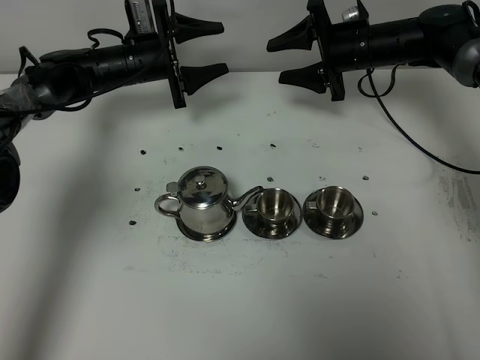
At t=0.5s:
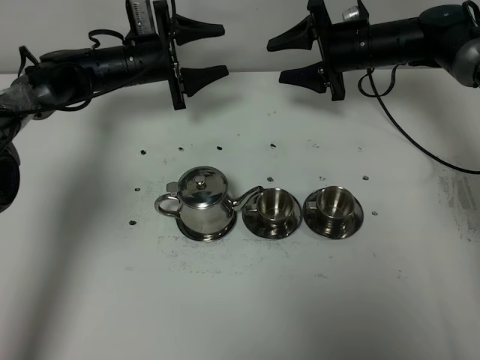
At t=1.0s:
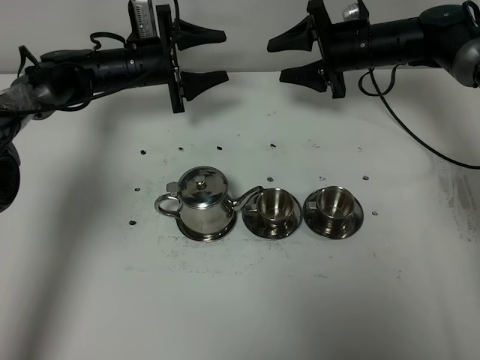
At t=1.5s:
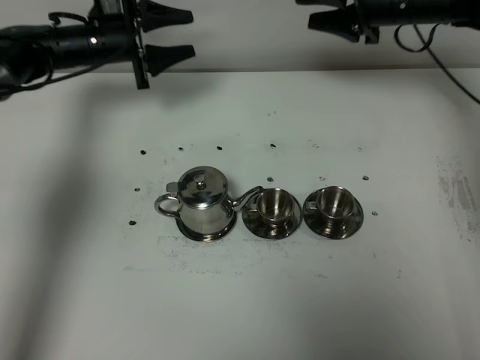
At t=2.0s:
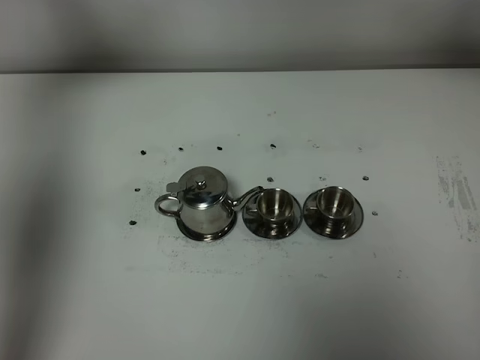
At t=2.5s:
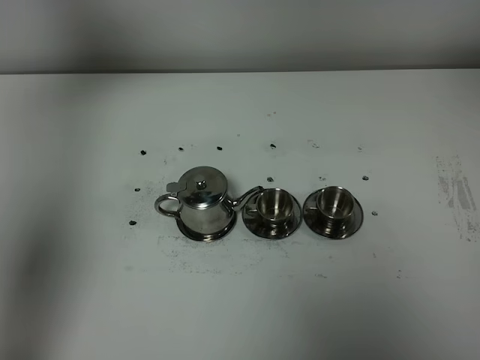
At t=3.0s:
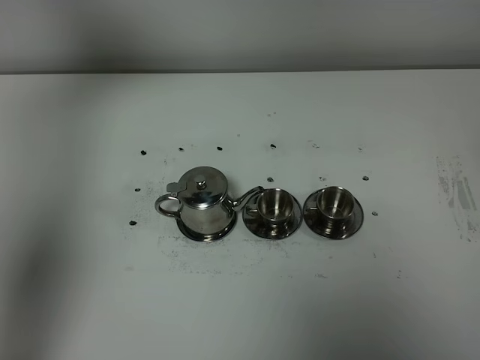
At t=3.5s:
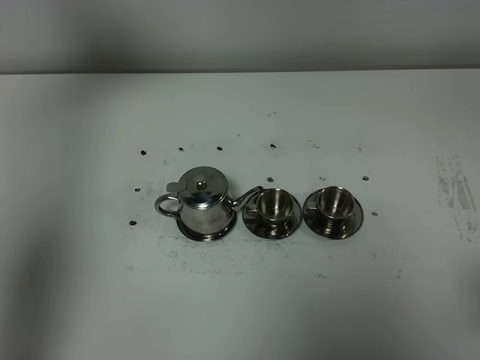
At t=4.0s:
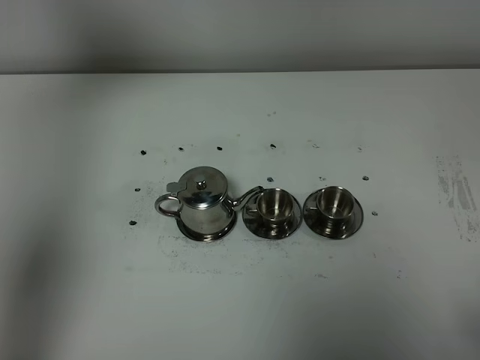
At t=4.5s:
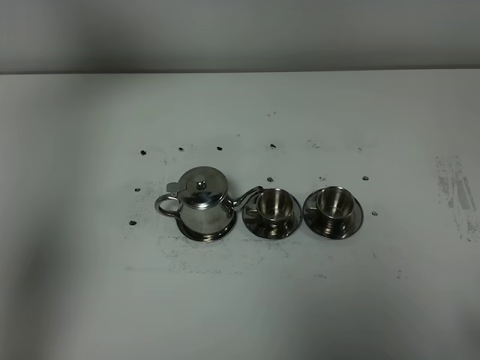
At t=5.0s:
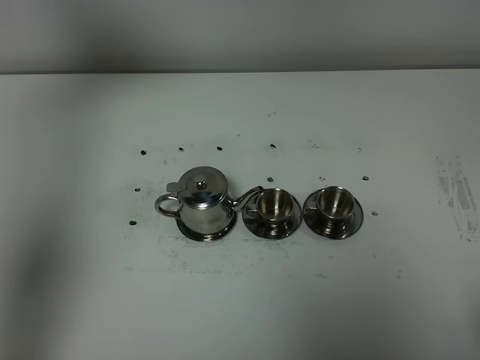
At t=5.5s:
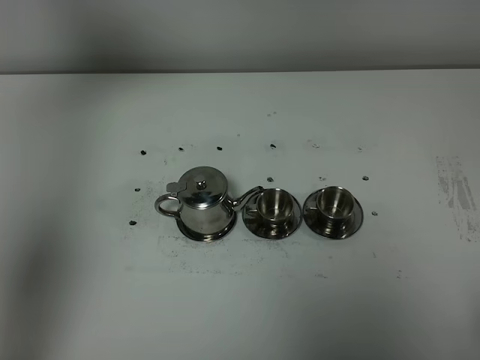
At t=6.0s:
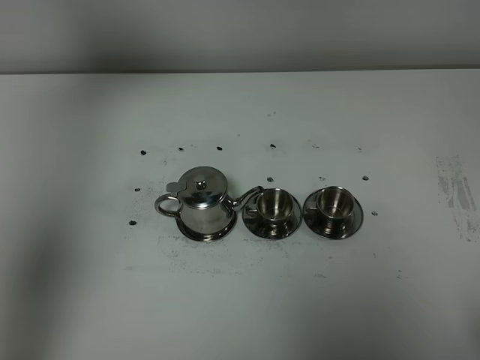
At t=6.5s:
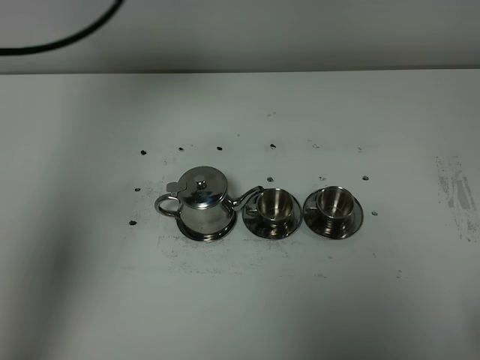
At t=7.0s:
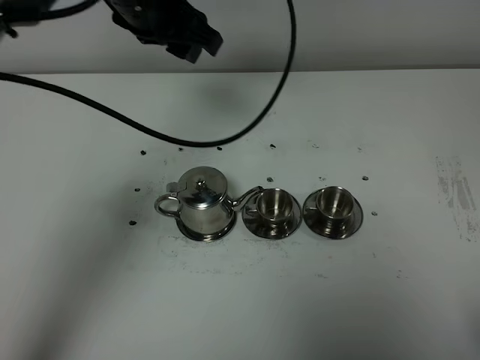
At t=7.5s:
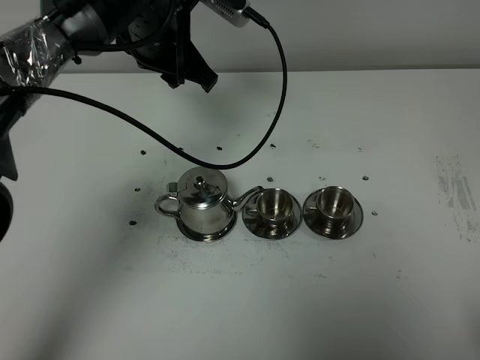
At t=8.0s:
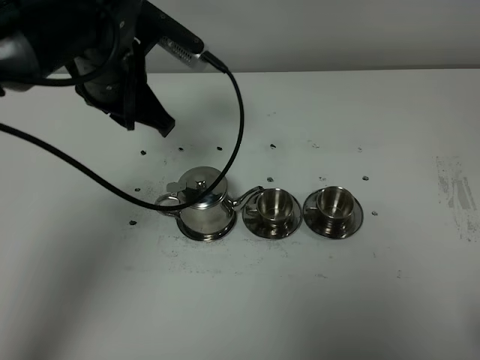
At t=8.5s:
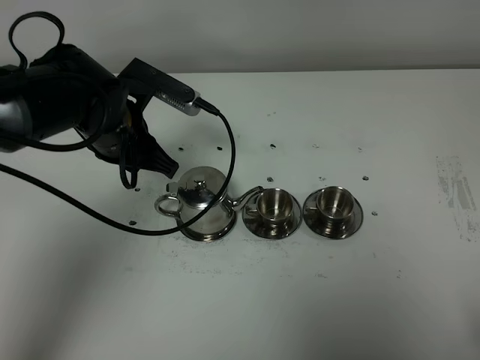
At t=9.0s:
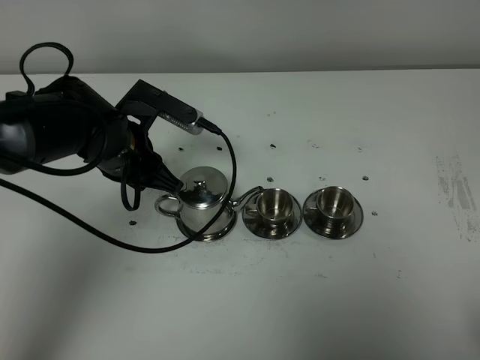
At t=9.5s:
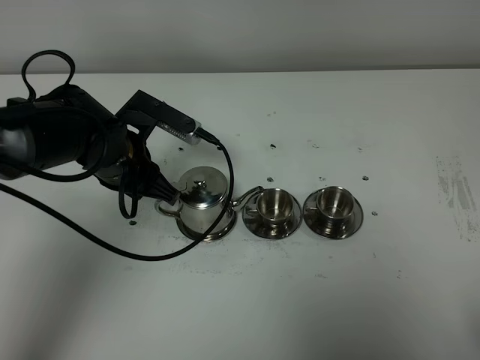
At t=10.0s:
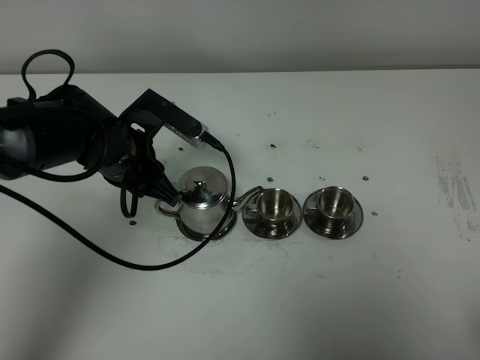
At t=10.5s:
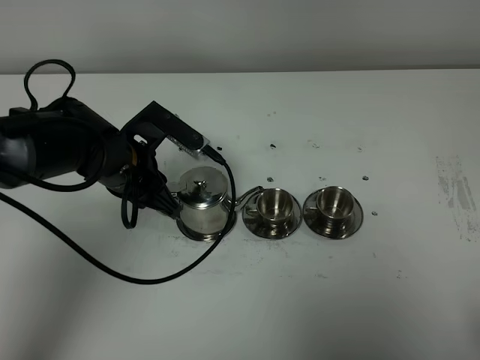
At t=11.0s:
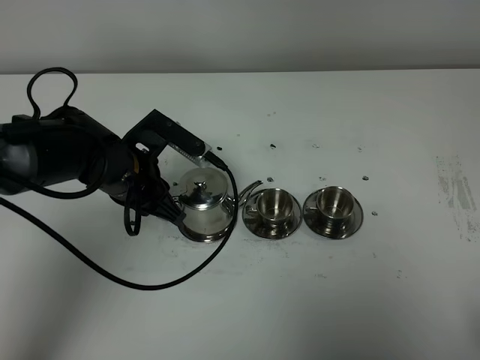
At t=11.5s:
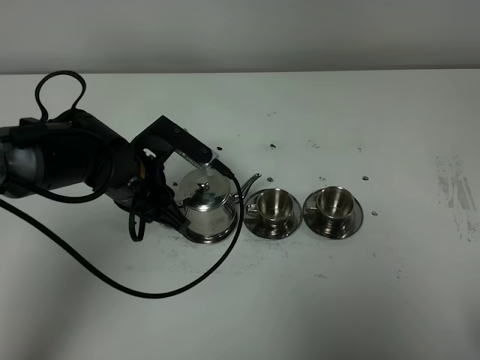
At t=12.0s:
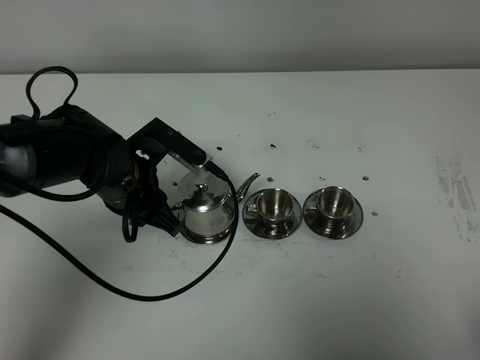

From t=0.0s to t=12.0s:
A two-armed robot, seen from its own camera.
Task of the whole recording: grasp the stainless steel teapot and pour the tea into the two stainless steel teacups one by one, put the stainless steel teapot back in its original place.
From t=0.0s to t=2.0s: The right gripper travels upward, backward and to the right by about 30 cm. The left gripper moves upward and to the left, roughly 25 cm.
From t=2.0s to t=4.0s: The right gripper heads backward, covering roughly 40 cm. Meanwhile the left gripper goes approximately 15 cm upward and backward.
From t=6.0s to t=8.0s: The left gripper shifts approximately 25 cm downward and to the right, and closes its fingers.
From t=8.0s to t=10.0s: The left gripper moves downward, some 10 cm.
From t=10.0s to t=12.0s: There are only small adjustments of the grippers.

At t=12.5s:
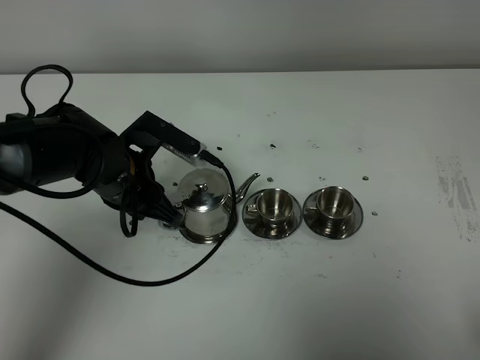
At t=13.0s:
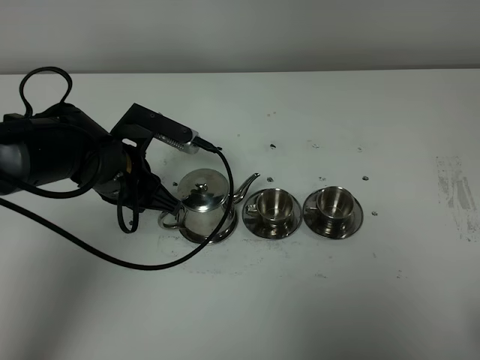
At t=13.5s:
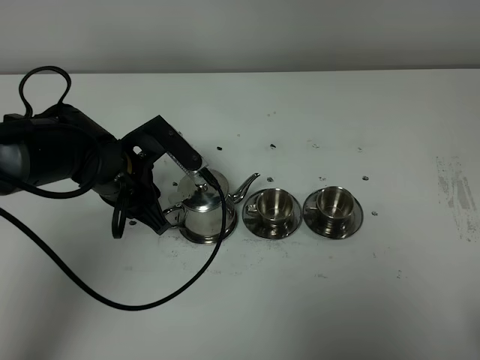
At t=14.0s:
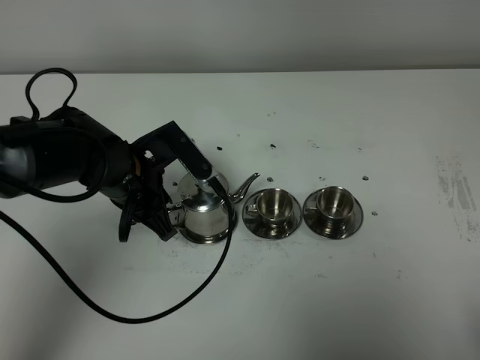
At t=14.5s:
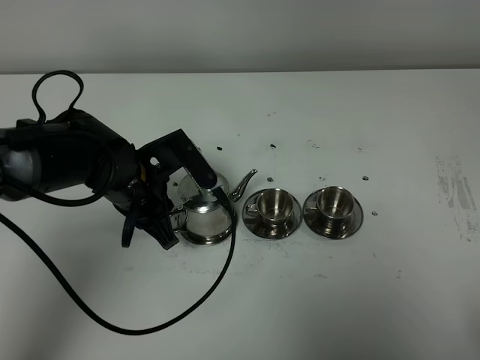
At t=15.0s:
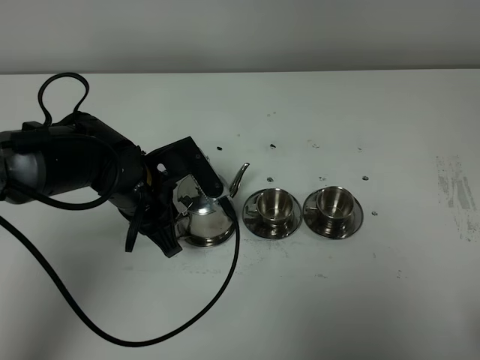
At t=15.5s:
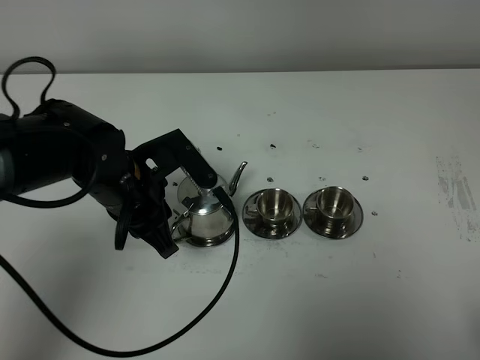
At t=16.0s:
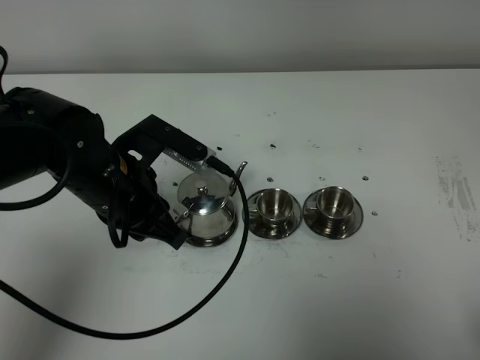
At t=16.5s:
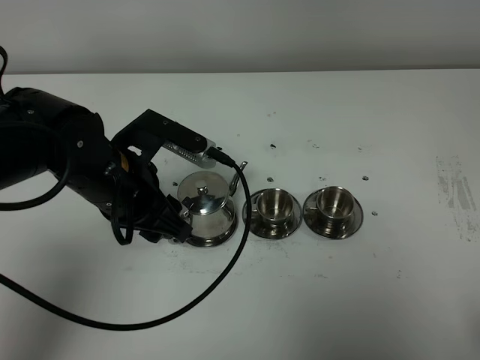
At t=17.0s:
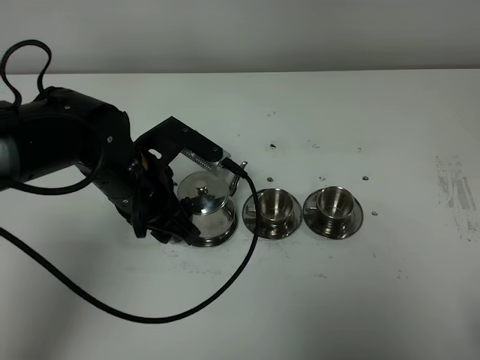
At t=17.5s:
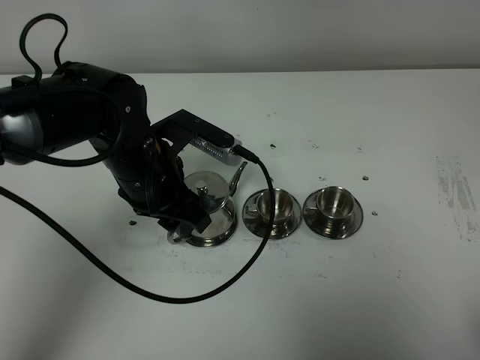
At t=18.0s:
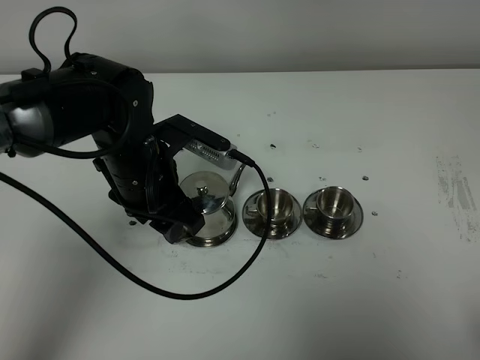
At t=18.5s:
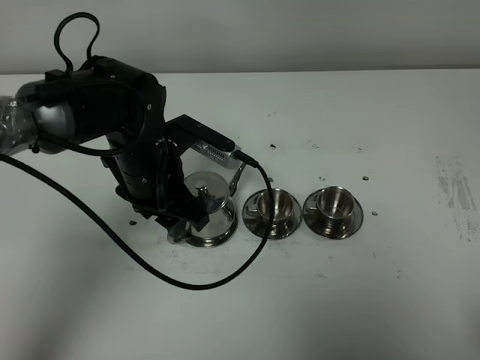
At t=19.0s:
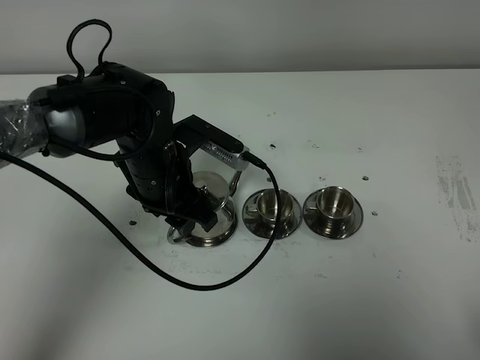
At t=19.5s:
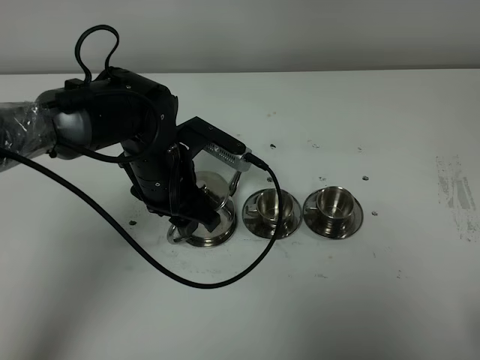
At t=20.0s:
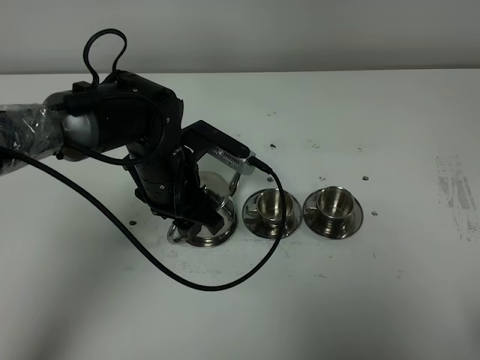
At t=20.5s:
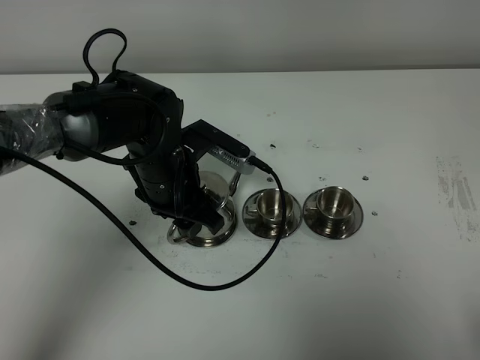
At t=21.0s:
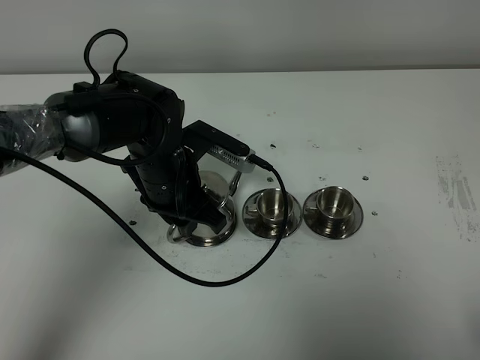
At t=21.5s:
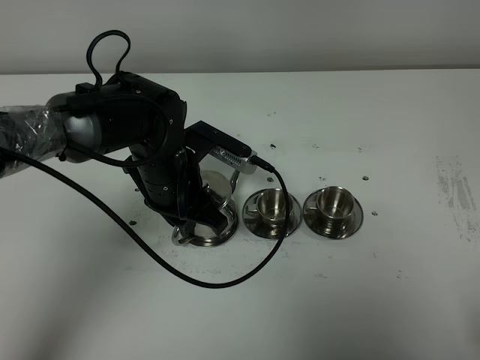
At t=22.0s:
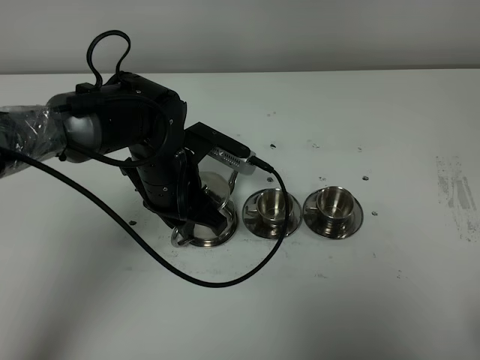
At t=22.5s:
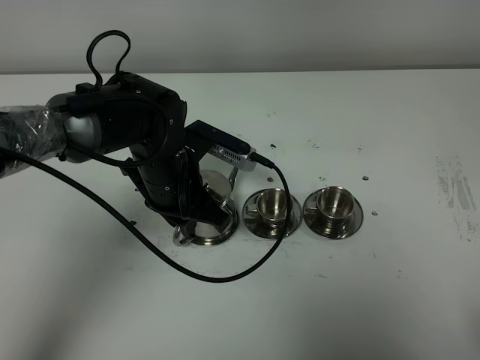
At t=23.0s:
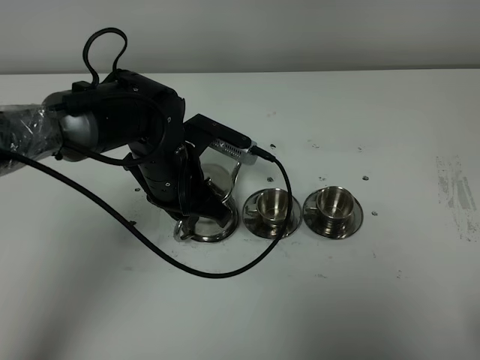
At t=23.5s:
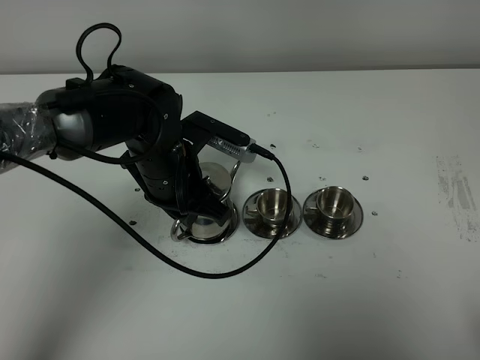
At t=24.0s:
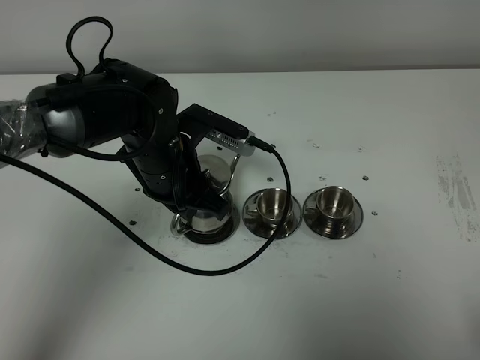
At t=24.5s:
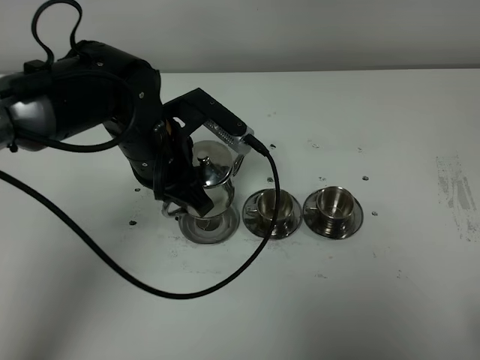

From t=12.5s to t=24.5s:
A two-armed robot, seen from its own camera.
Task of the whole recording: grasp the stainless steel teapot and pour the tea into the two stainless steel teacups one by one, put the stainless steel teapot back in its original place.
Step, from t=12.5s to t=23.5s: Pick up the teapot with the left gripper.
From t=14.5s to t=16.5s: The left gripper heads upward, covering approximately 5 cm, and opens.
From t=16.5s to t=18.5s: The left gripper changes place by about 5 cm.
From t=18.5s to t=20.5s: The grippers move only a little.
From t=20.5s to t=22.5s: The left gripper closes.
From t=22.5s to t=24.5s: The left gripper travels upward by about 5 cm.

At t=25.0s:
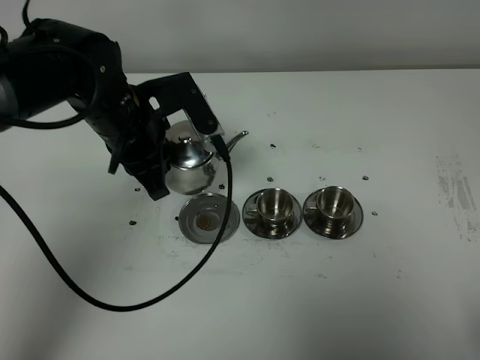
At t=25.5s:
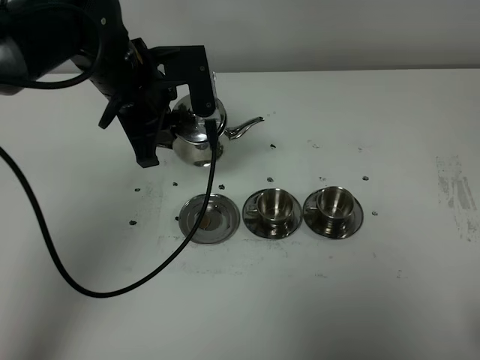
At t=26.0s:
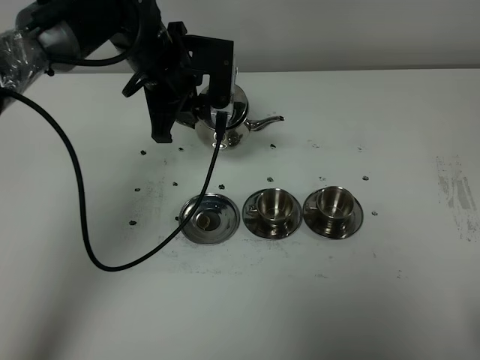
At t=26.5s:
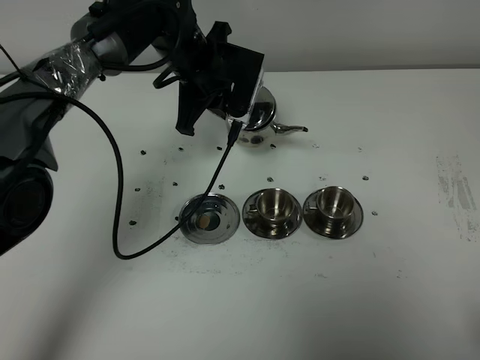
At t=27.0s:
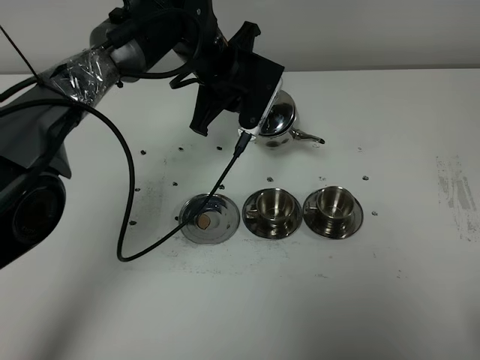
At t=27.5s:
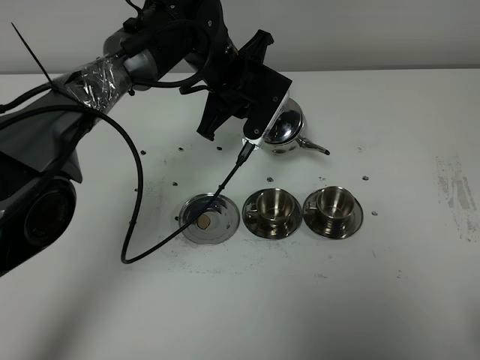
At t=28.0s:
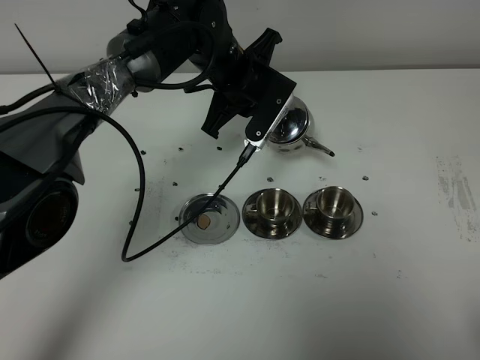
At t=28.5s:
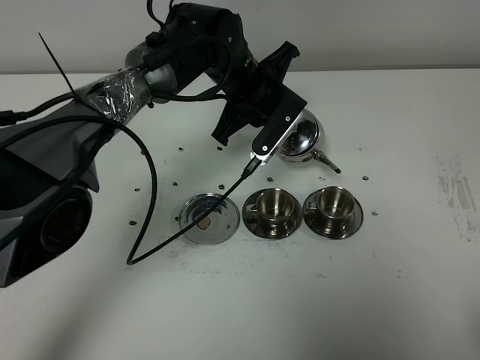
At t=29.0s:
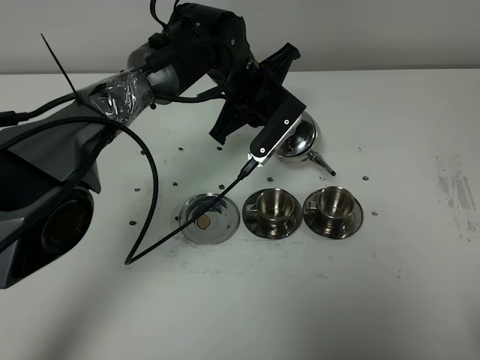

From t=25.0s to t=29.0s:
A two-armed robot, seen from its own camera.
Task of the whole recording: grasp the stainless steel teapot and pour the tea into the two stainless steel teacups one by one, put the stainless steel teapot back in its original place.
From t=25.0s to t=27.0s: The left gripper is displaced forward and to the right by approximately 15 cm.
From t=27.0s to t=29.0s: The grippers move only a little.
